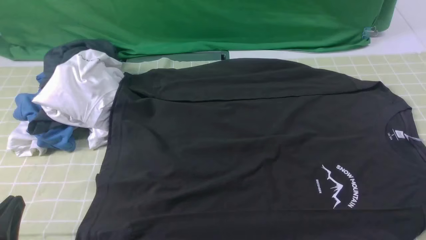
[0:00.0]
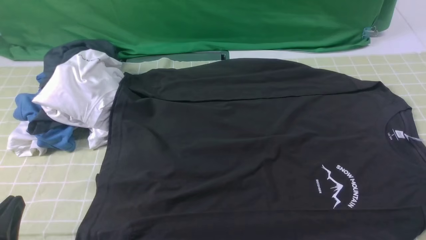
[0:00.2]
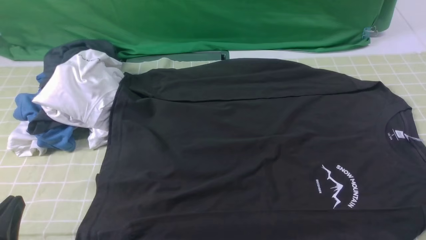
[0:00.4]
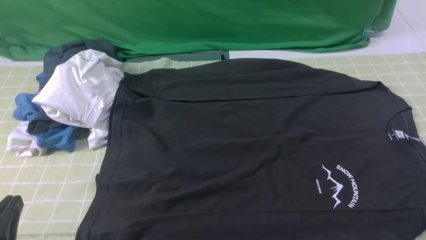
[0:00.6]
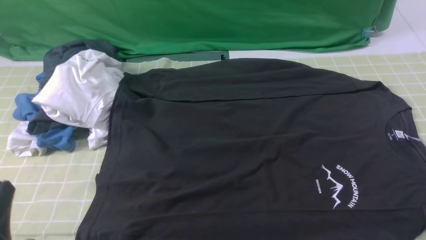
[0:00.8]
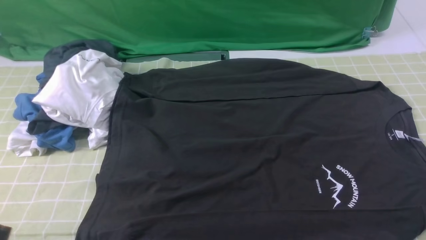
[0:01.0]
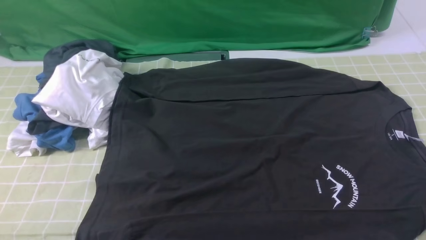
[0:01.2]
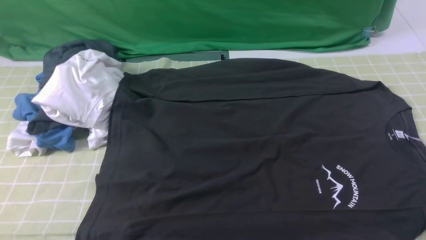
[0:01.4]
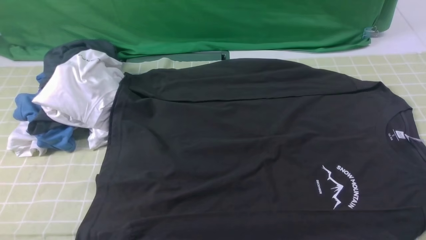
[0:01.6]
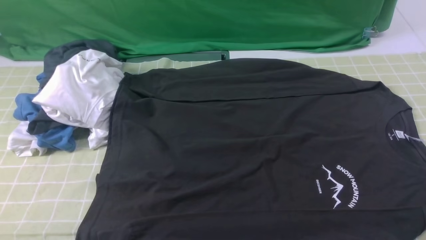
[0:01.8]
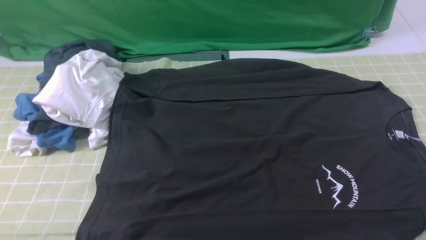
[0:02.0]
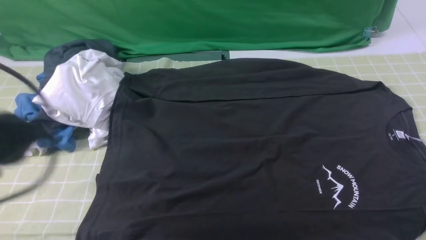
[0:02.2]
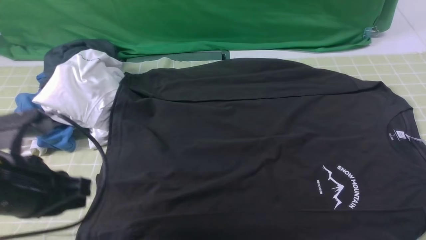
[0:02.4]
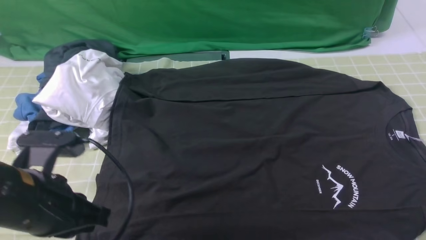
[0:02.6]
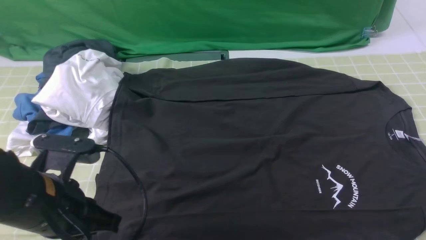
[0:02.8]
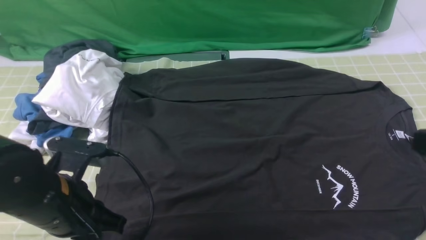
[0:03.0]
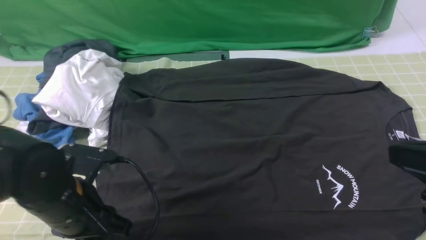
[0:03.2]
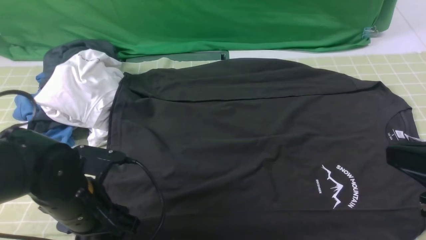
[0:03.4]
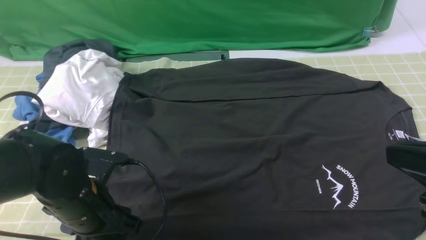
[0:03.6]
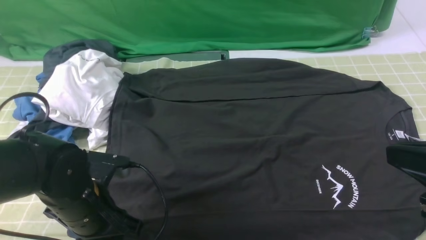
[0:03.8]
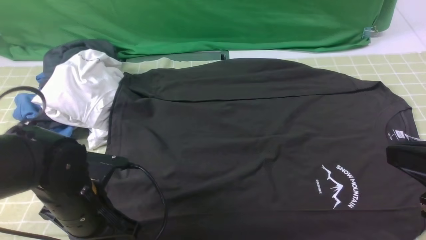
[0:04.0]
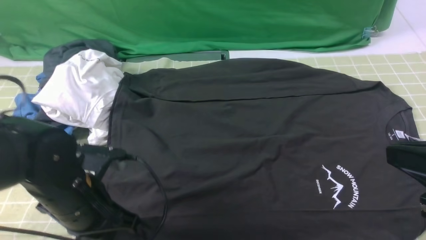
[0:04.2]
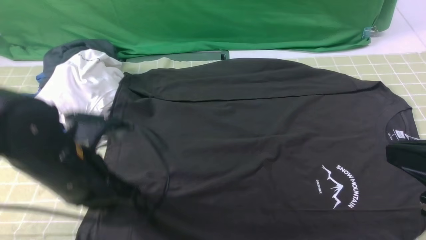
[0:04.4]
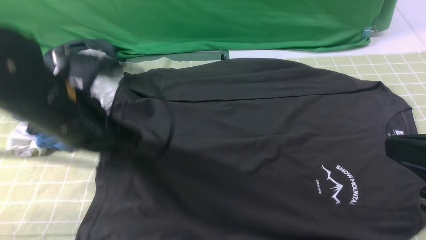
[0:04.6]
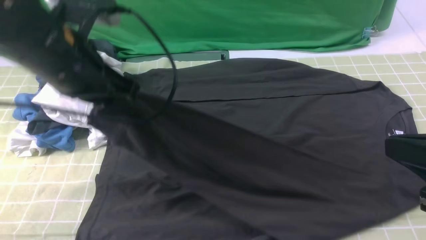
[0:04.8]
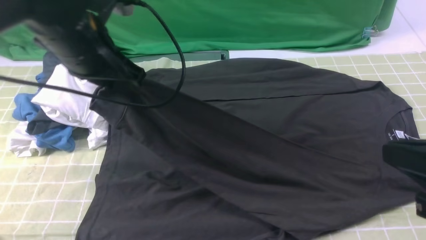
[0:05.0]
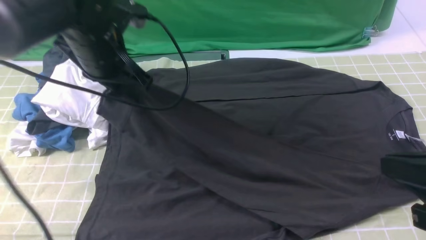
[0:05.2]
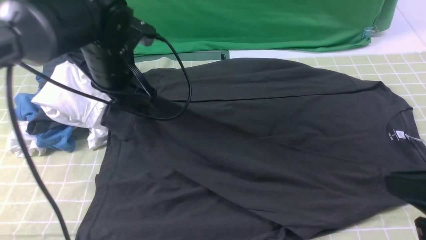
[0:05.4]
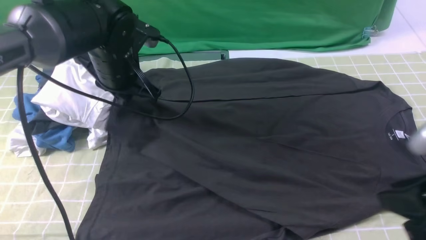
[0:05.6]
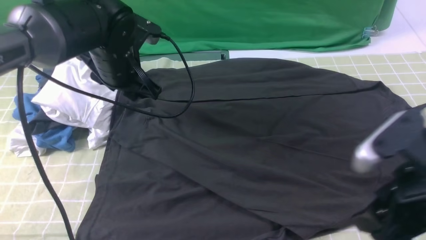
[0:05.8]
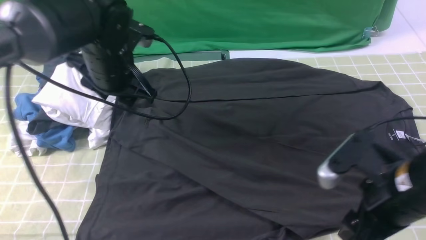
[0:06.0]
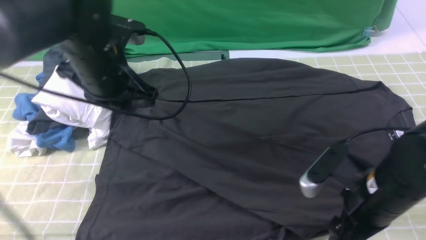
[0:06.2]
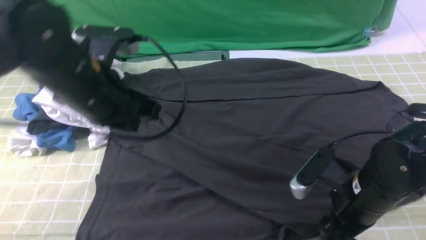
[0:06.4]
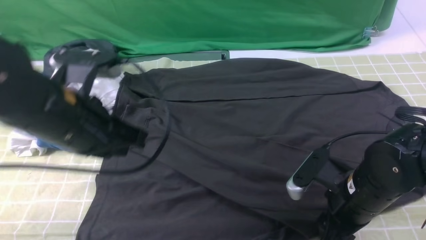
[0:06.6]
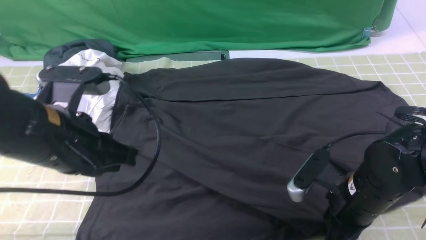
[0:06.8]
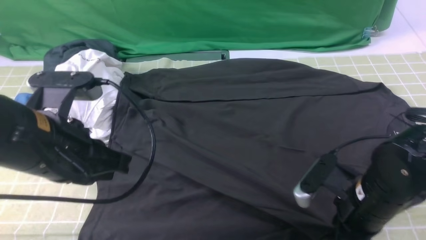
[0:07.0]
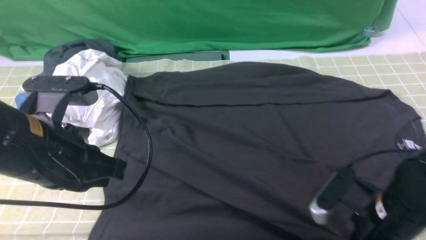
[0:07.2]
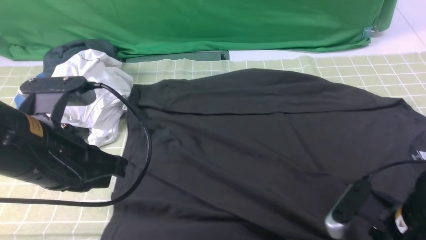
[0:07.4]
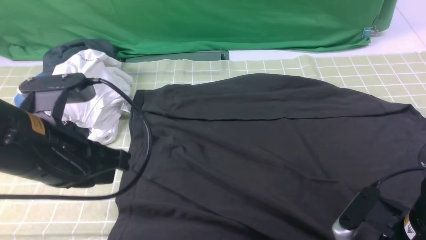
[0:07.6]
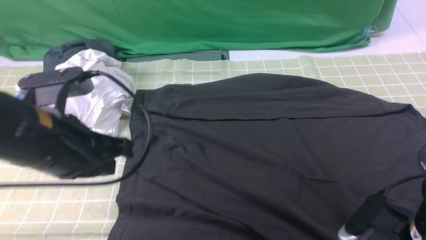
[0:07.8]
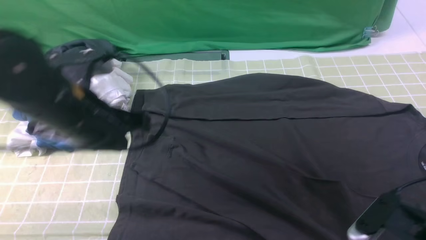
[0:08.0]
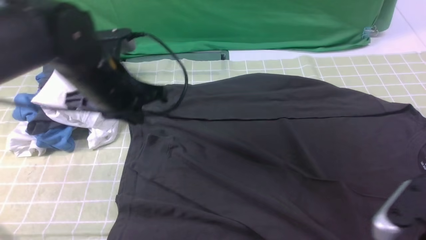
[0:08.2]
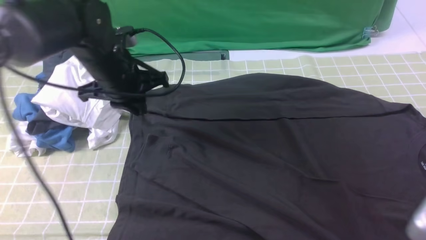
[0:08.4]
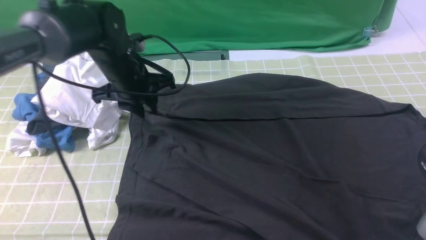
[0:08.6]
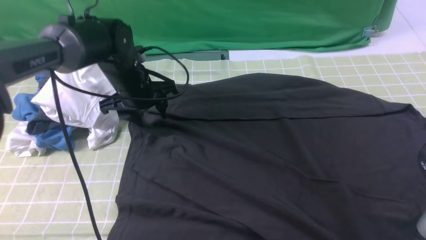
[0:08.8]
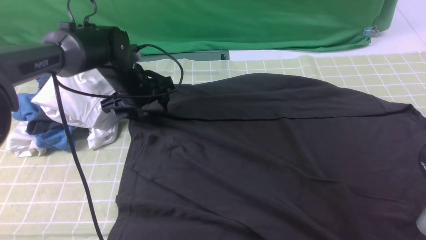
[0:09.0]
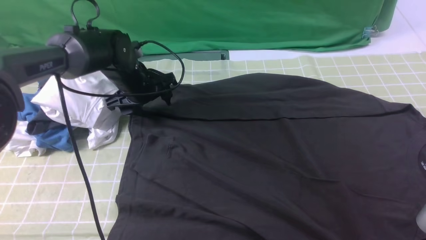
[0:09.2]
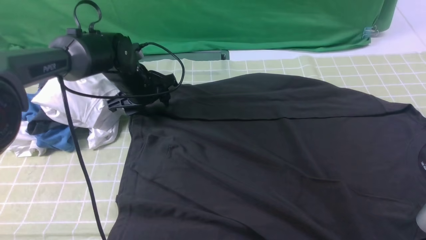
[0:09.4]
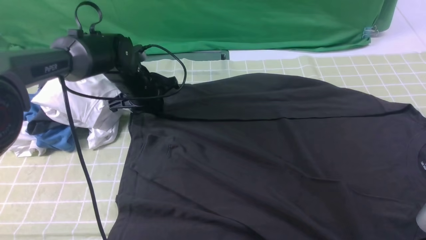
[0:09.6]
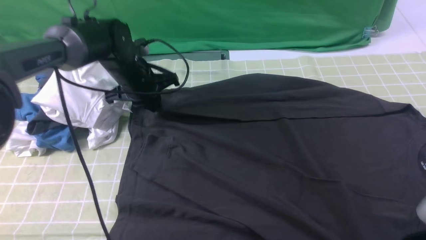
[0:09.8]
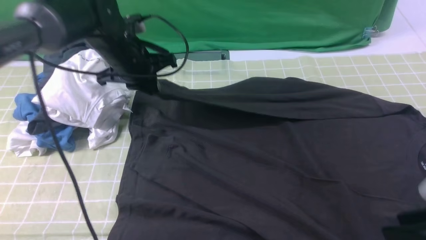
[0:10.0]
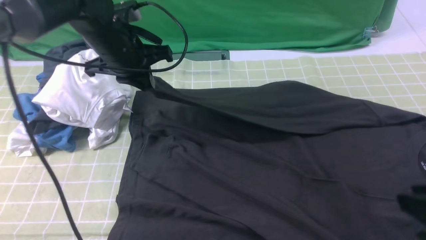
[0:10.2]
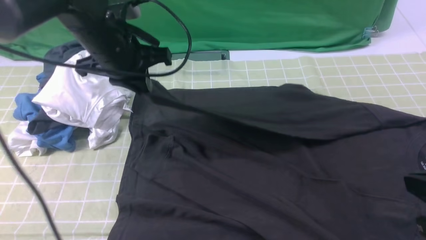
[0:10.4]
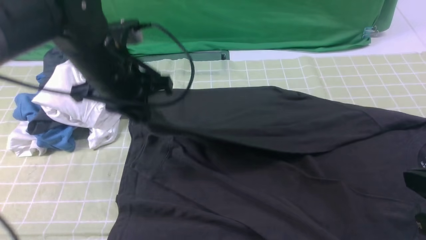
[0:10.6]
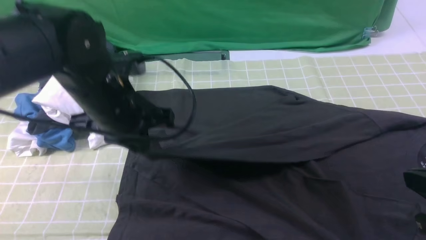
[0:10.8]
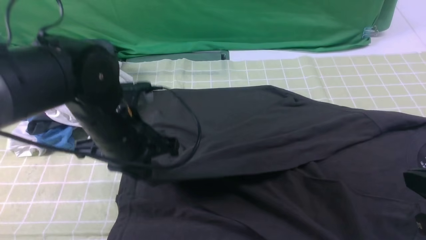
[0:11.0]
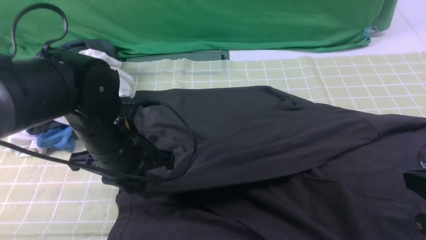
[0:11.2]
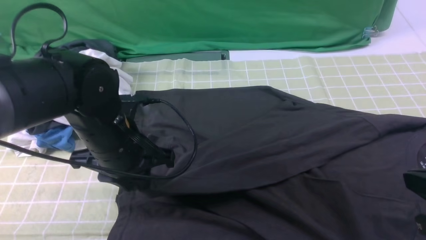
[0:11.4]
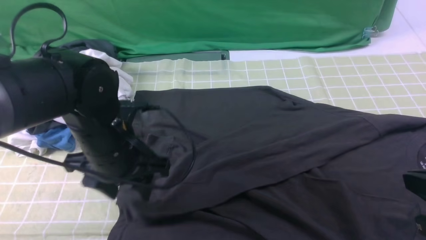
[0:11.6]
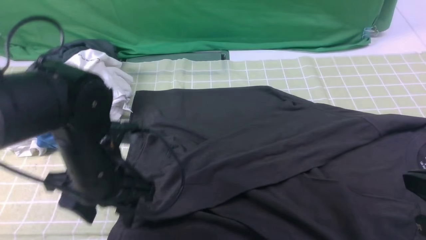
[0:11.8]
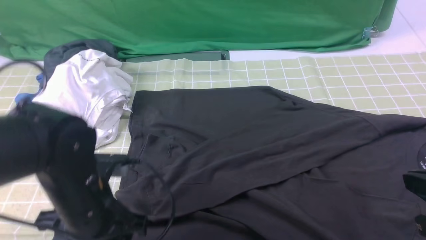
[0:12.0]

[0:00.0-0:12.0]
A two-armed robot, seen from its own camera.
Step, 0:00.0 to 0:03.8: use the left arm to clamp the cuff closest to it.
Step, 0:04.0 to 0:05.8: use the left arm to drag and place the cuff at the centered position on the left edge of the fabric.
Step, 0:06.0 to 0:09.6: use the left arm to clamp the cuff farthest from it.
Step, 0:09.8 to 0:11.6: use the left arm to drag and drop the cuff onto the cuff closest to the left arm.
0:00.0 to 0:01.6: The left gripper moves upward, some 10 cm.
0:01.6 to 0:03.0: The left gripper moves forward, downward and to the right, roughly 20 cm.
0:03.0 to 0:04.4: The left gripper changes place by roughly 5 cm, and opens and closes again.
0:04.4 to 0:06.0: The right gripper travels downward and forward by approximately 10 cm, and opens its fingers. The left gripper moves forward, approximately 15 cm, and opens its fingers.
0:06.0 to 0:07.6: The right gripper moves about 5 cm, and closes up; the left gripper goes roughly 15 cm backward, and closes its fingers.
0:07.6 to 0:09.0: The left gripper shifts about 25 cm forward and downward, and opens; the right gripper shifts approximately 10 cm upward and backward.
0:09.0 to 0:10.4: The right gripper closes. The left gripper goes some 15 cm upward and backward, and closes up.
0:10.4 to 0:12.0: The left gripper goes roughly 20 cm backward and downward, and opens up.

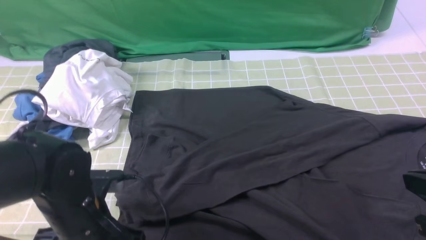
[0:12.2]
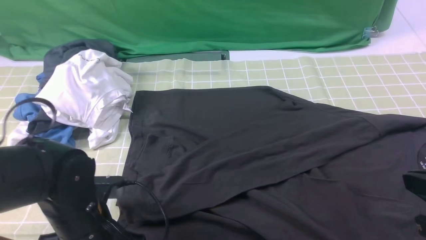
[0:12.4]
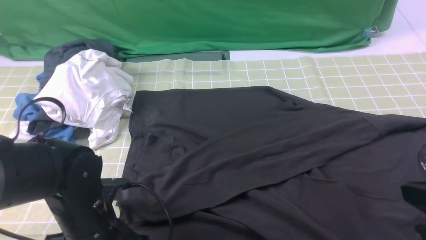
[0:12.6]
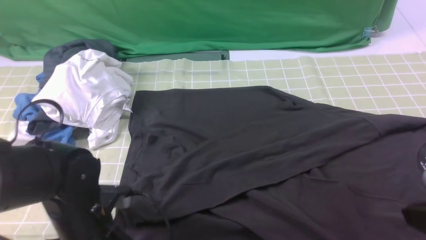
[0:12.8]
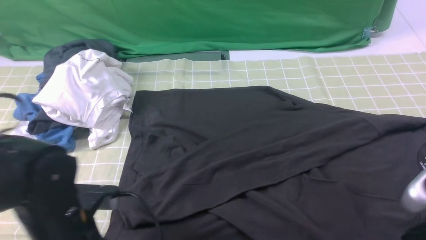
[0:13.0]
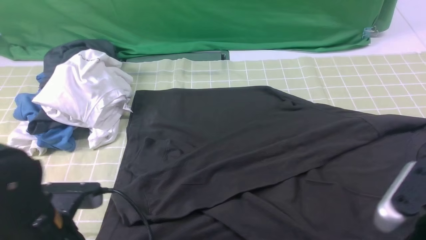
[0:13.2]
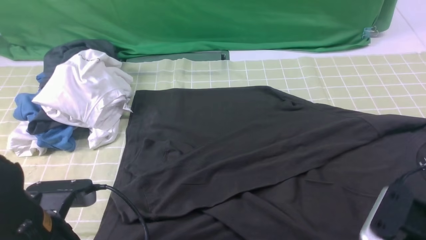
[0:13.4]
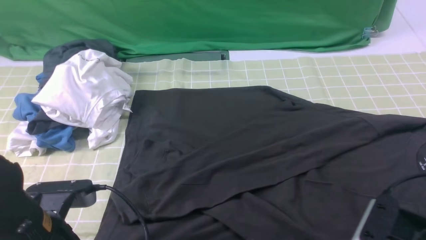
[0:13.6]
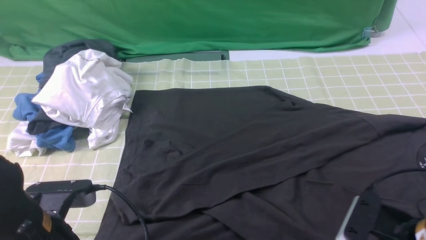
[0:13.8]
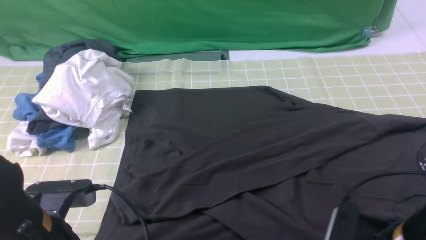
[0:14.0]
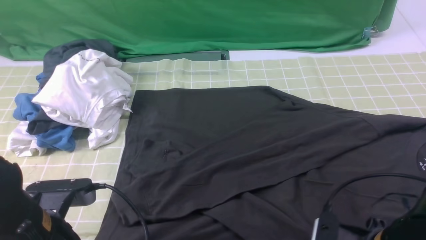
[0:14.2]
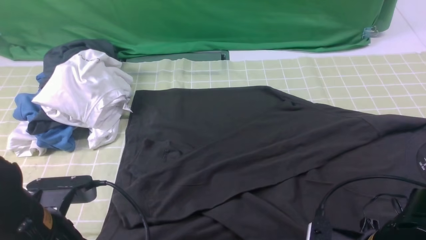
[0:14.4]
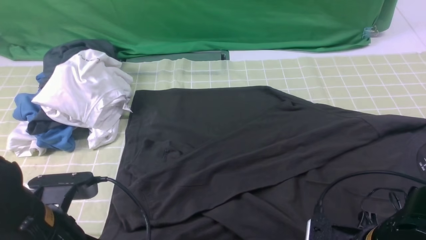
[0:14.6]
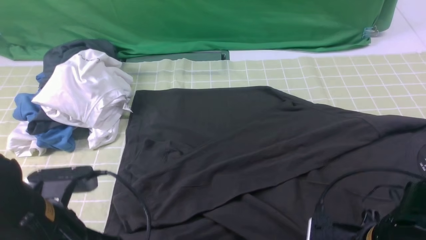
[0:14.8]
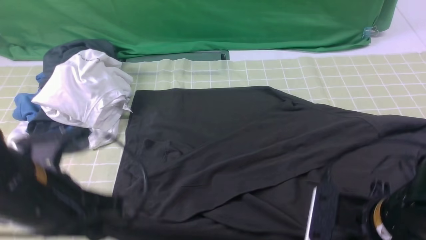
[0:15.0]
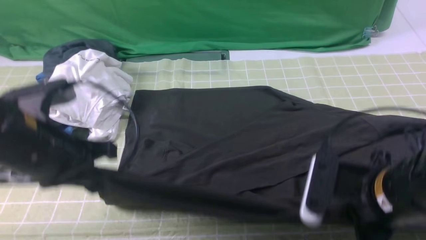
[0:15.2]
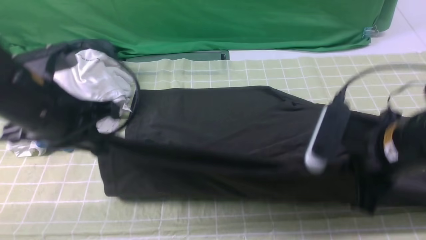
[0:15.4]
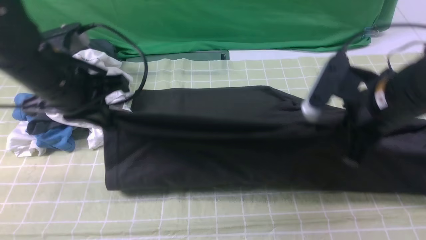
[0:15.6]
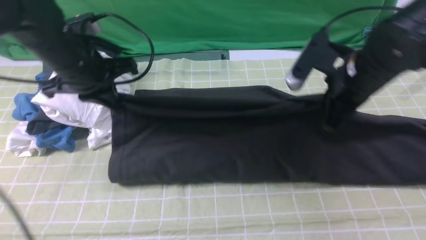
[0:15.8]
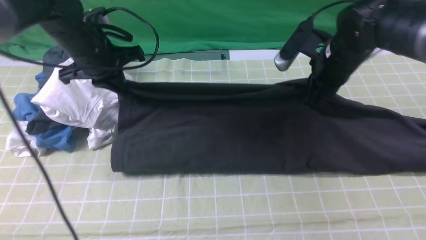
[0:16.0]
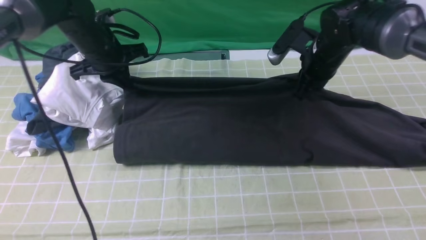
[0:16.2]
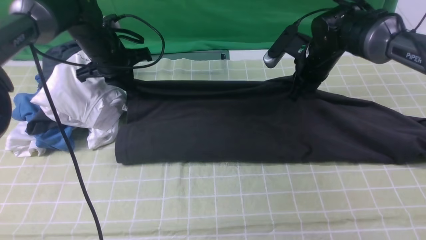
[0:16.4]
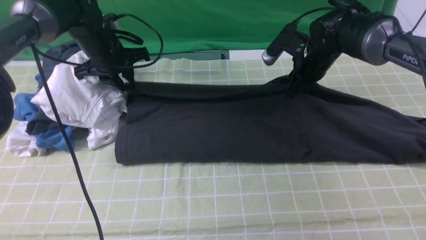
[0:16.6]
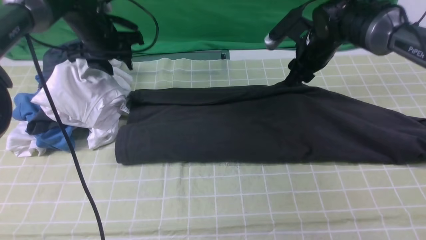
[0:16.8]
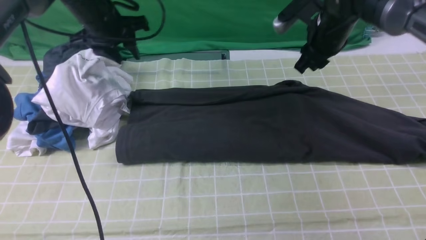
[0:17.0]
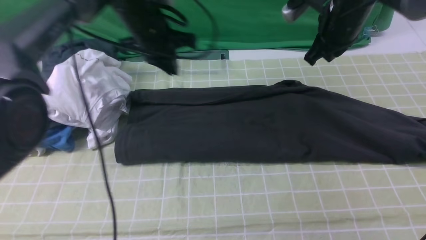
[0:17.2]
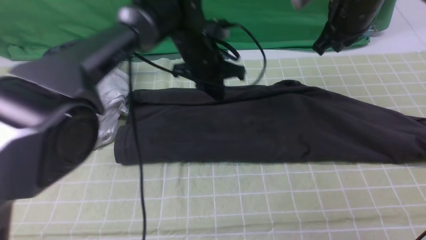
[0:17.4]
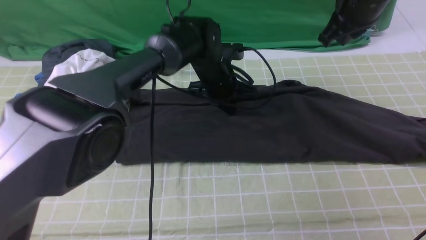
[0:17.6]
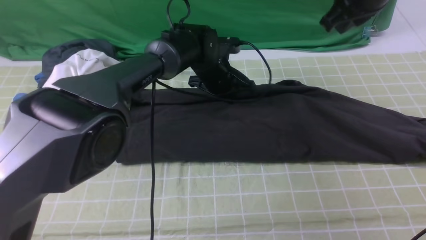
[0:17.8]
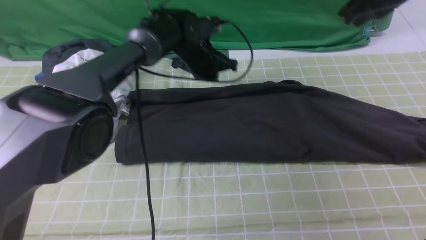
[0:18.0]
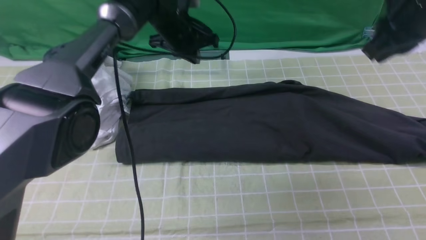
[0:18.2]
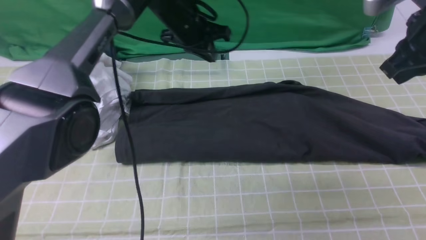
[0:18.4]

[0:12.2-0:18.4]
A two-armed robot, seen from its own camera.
Step, 0:12.2 to 0:14.6: use both arms simultaneously to clamp the lower edge of the clothing fabric.
0:12.2 to 0:13.8: The left gripper is displaced backward and upward by about 10 cm, and closes up, while the right gripper shifts some 10 cm downward, and opens up.
0:13.8 to 0:15.4: The grippers both shift forward and upward by roughly 15 cm. The right gripper closes its fingers.
0:15.4 to 0:16.8: The two grippers go about 25 cm forward. The left gripper opens; the right gripper opens up.
0:16.8 to 0:18.4: The left gripper heads to the right, covering about 15 cm, and closes its fingers. The right gripper goes some 20 cm backward, upward and to the right, and closes.
